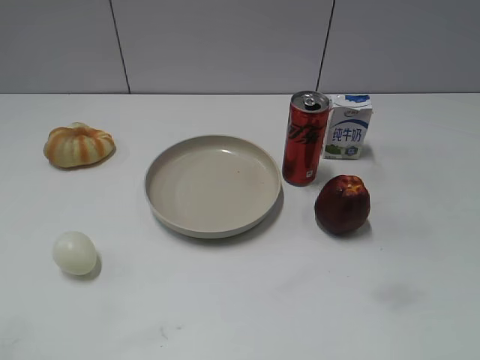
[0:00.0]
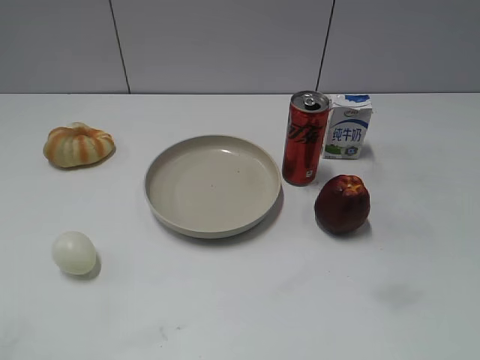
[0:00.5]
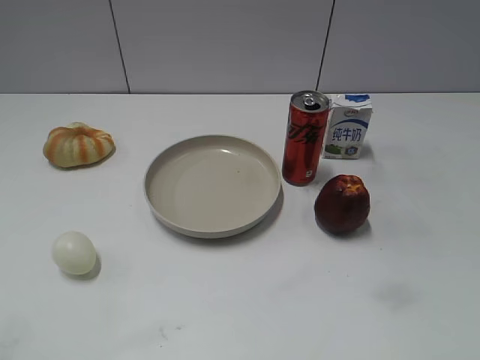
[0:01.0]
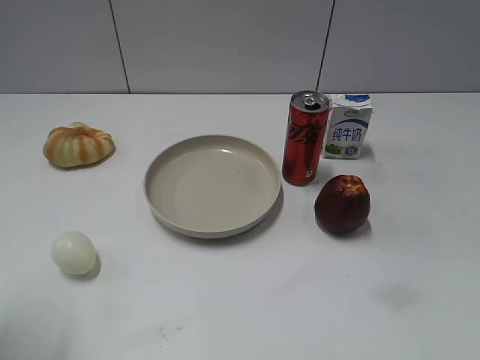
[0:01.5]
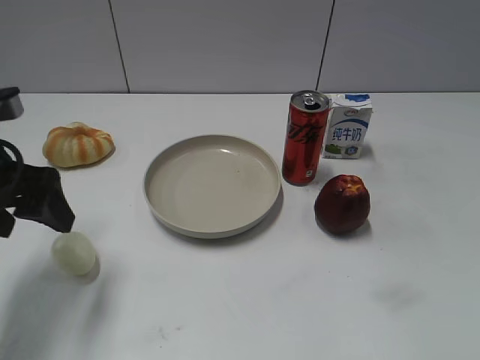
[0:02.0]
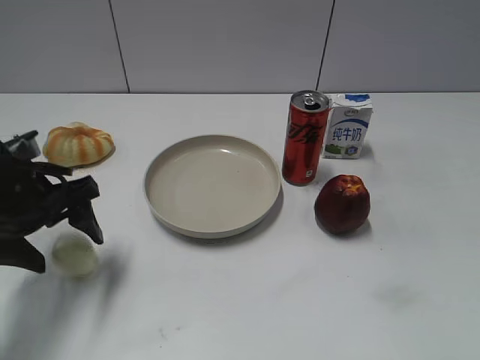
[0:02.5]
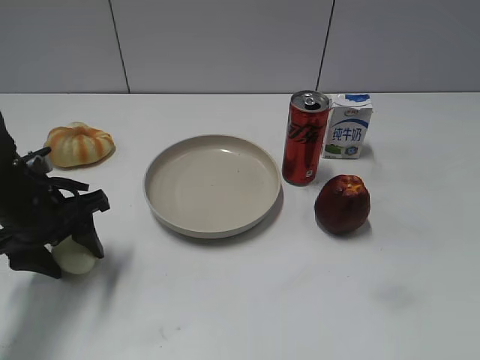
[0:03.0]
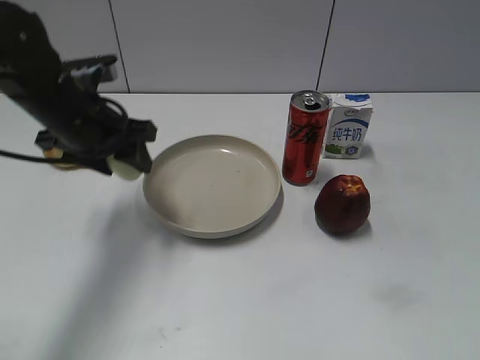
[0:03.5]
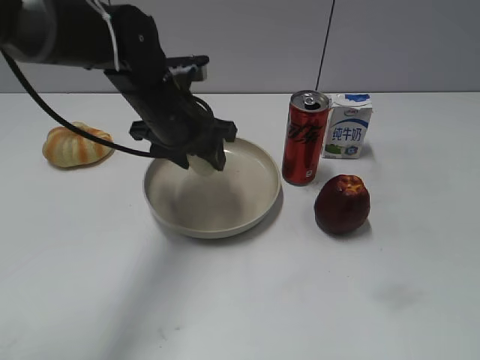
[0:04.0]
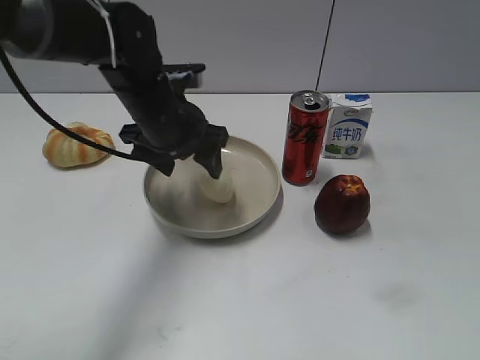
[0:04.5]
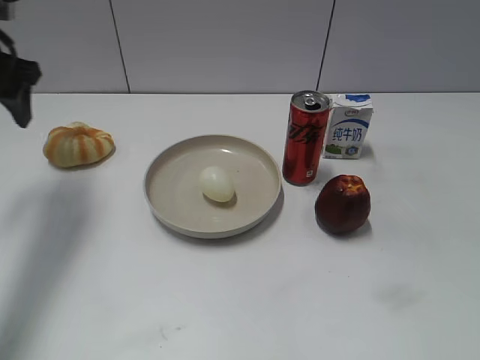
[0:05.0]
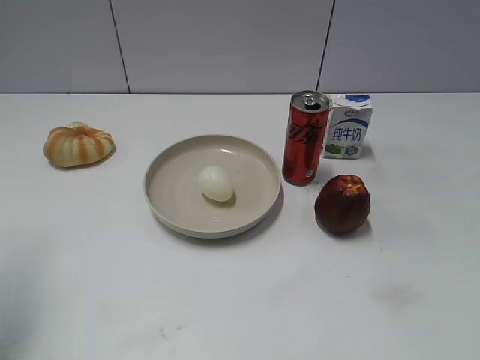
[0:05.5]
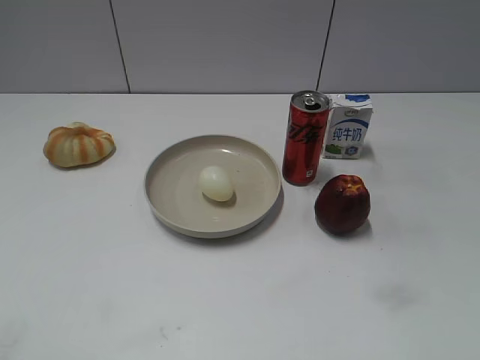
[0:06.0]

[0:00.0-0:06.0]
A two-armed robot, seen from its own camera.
Step, 0:01.0 to 0:03.0: Grasp the egg with left gripper.
Step, 0:03.5 to 0:04.5: Place the egg on the plate with left gripper.
0:02.0 to 0:04.0: The left gripper is displaced to the right and forward by roughly 20 cm, and closes up.
0:04.0 to 0:06.0: The left gripper heads backward and to the left, covering about 40 cm, and opens.
